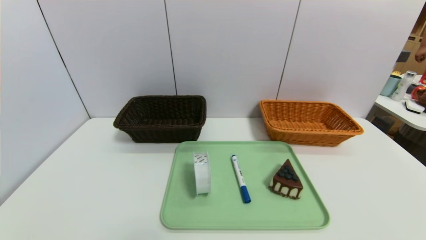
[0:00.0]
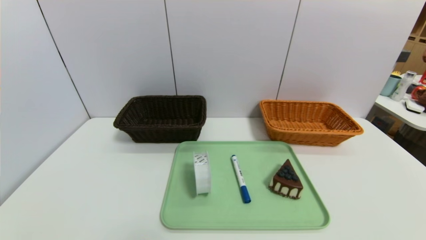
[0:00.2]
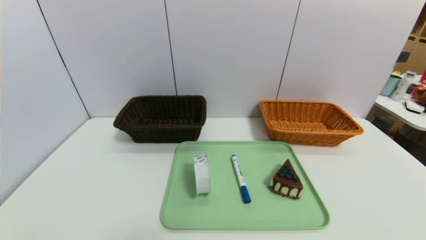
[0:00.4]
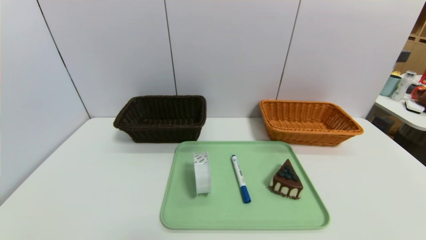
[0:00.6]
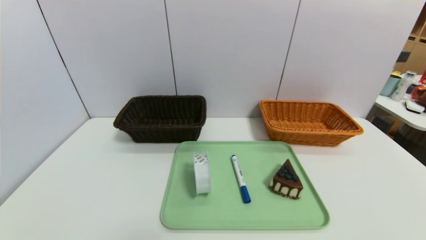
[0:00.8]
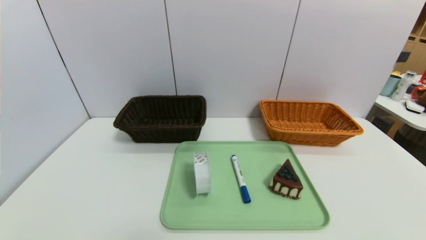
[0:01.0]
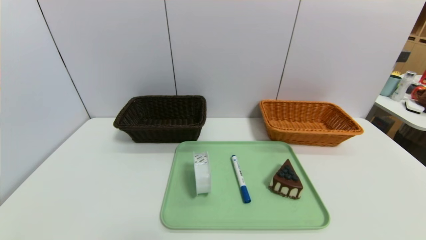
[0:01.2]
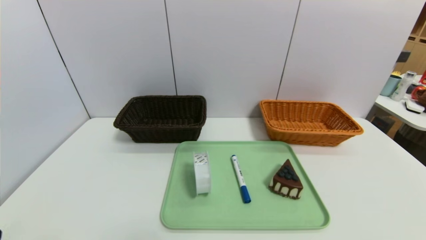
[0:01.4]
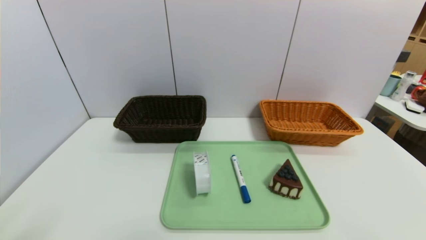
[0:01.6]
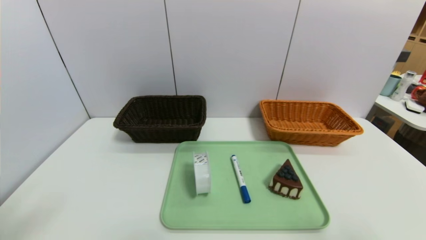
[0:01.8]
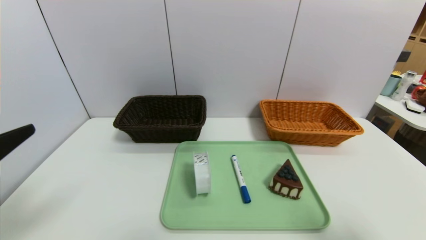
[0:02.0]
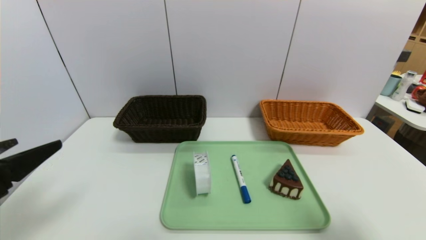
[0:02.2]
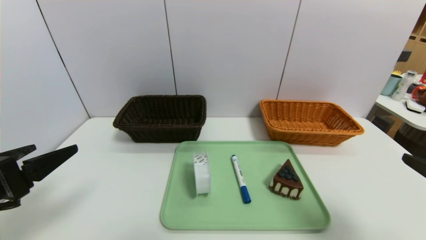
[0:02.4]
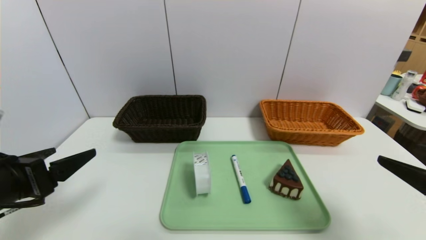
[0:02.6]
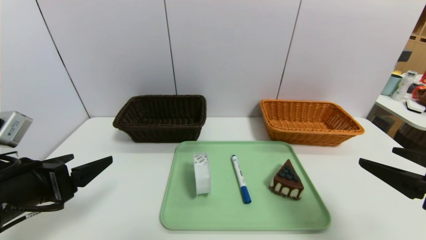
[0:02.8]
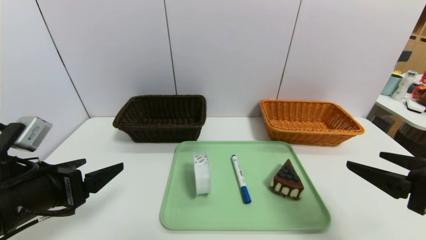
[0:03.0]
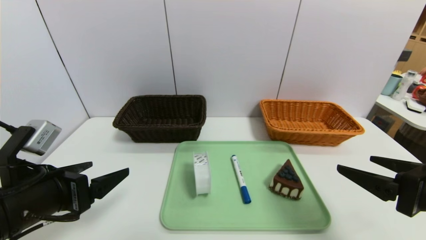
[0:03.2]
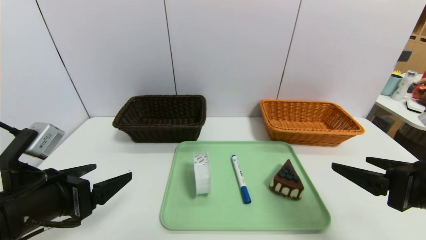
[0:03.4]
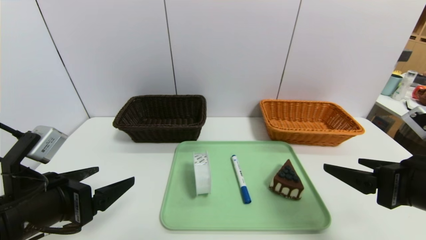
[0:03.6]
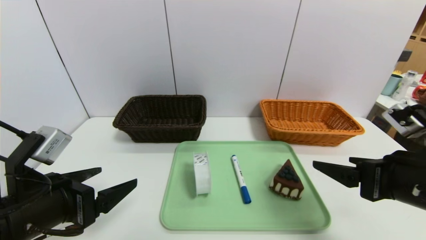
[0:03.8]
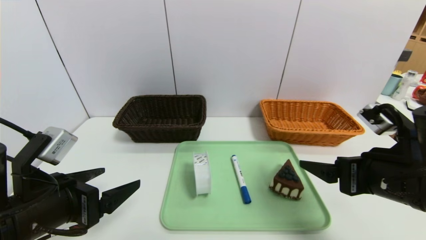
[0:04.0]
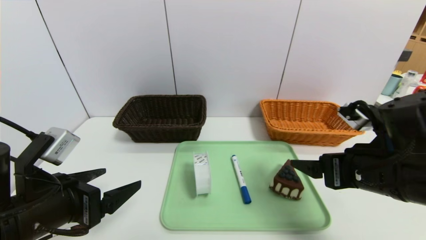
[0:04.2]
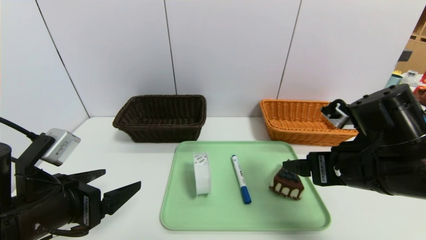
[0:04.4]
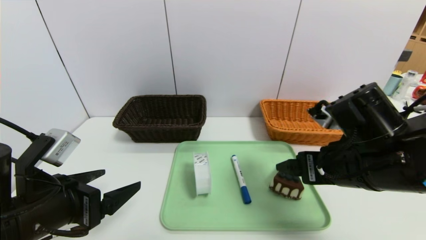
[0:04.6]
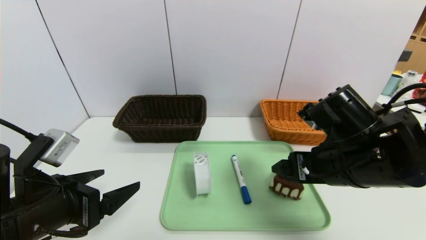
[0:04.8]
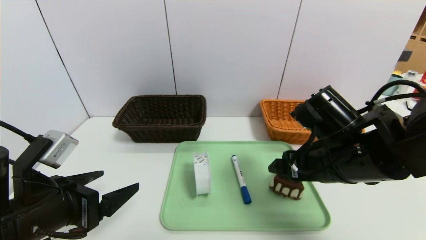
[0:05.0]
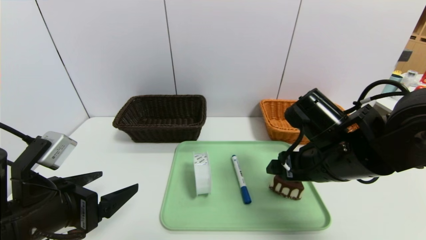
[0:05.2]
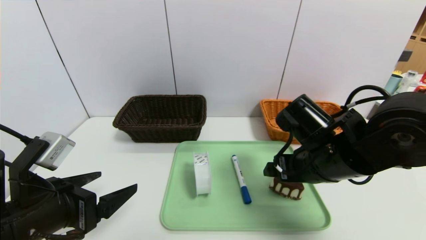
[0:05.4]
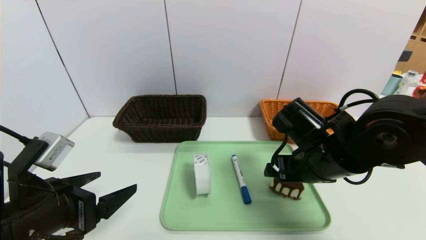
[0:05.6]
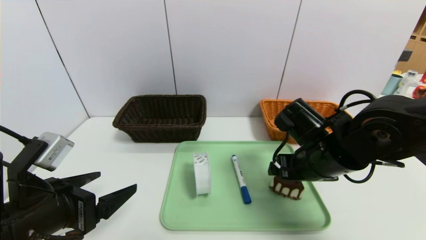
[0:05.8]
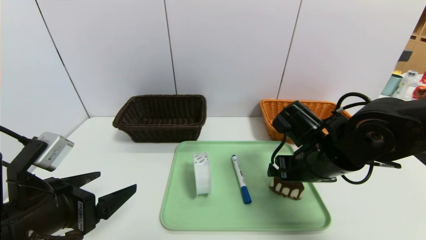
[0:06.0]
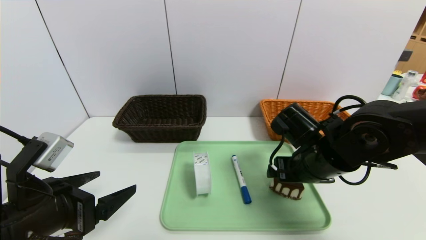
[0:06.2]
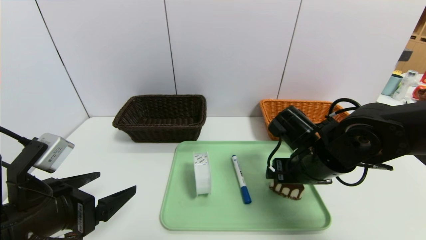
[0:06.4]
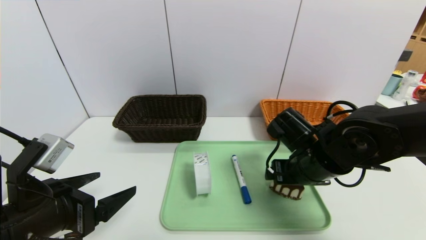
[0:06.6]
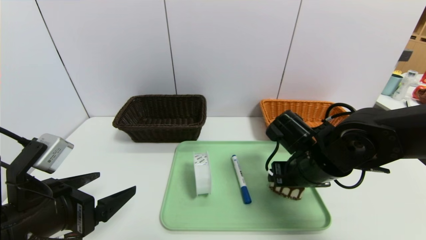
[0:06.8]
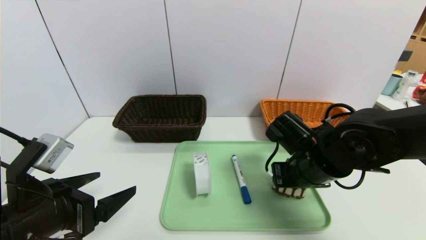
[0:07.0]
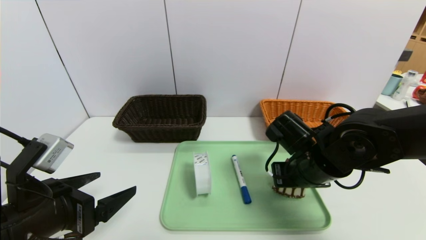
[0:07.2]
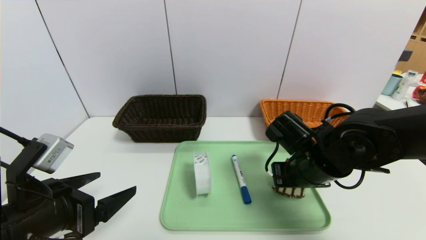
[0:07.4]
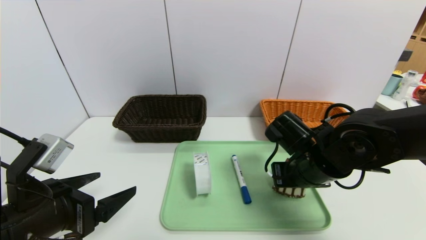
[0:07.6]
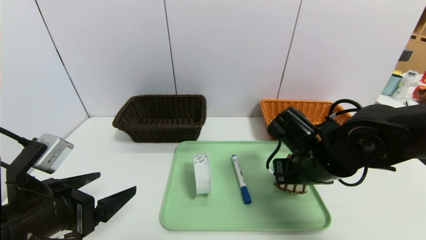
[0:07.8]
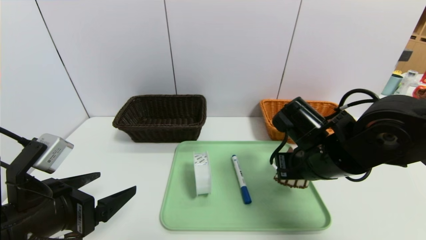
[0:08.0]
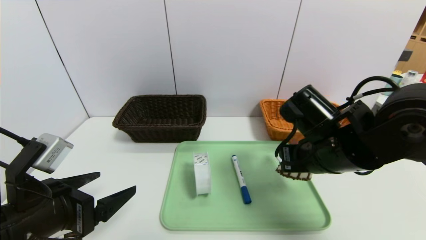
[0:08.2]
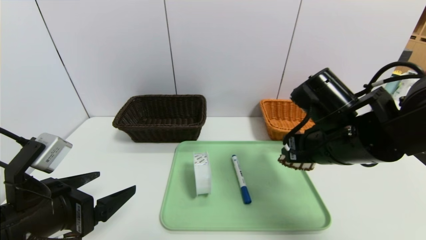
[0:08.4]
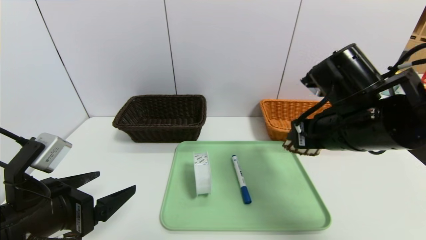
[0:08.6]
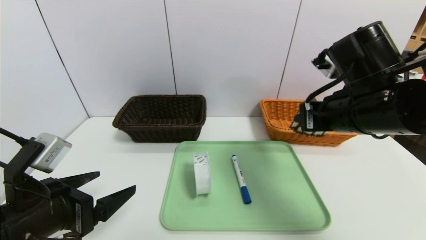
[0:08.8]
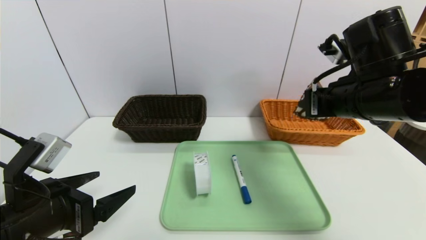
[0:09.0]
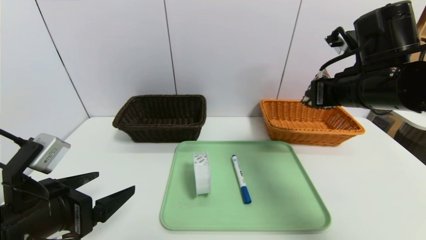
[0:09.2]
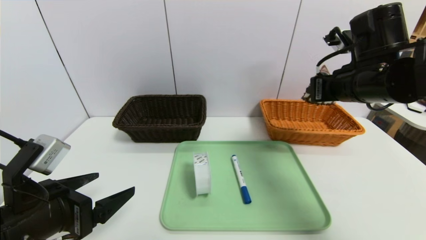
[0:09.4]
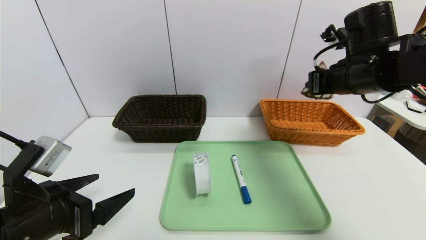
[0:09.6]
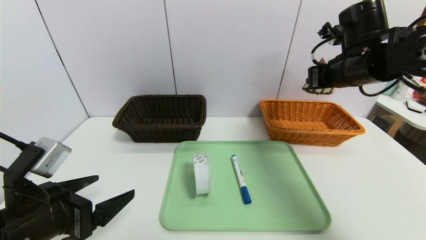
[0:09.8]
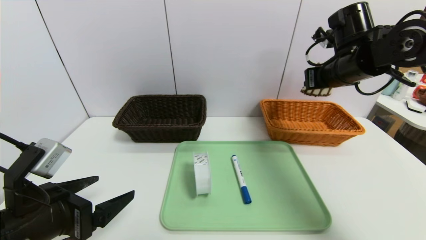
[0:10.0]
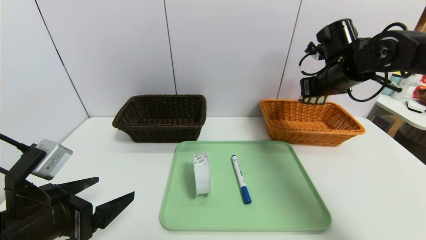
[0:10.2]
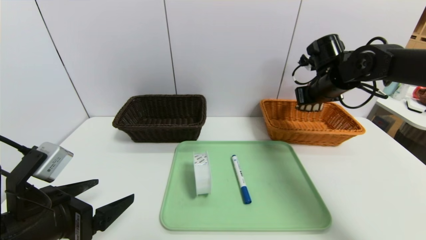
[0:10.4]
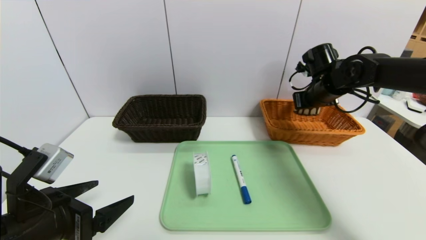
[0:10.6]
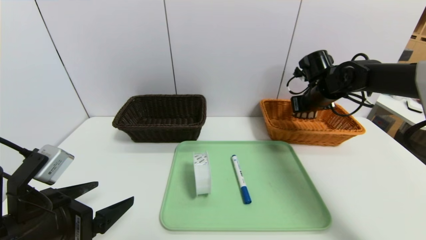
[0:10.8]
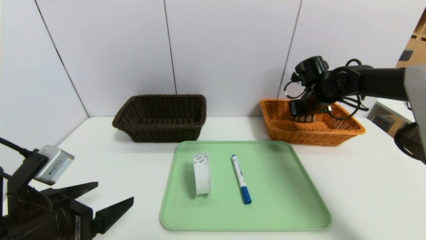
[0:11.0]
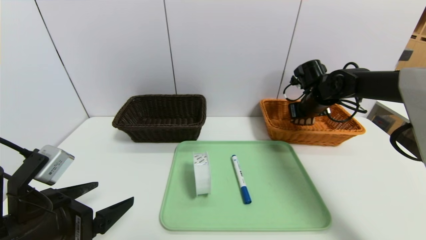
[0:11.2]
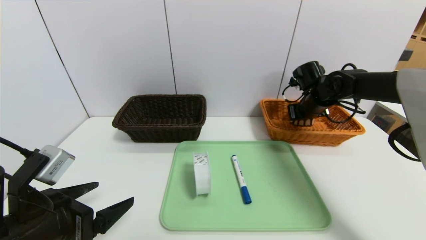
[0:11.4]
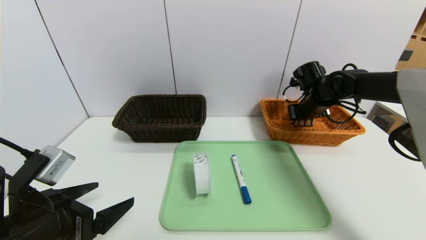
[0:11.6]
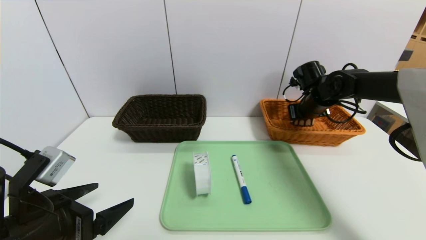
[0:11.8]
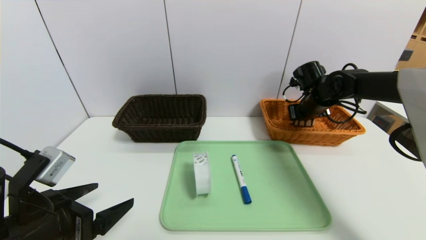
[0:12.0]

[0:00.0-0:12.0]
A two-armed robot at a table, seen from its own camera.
Task of the whole recording: place the food in the right basket with the right gripper, and place the non food items in the left basket with the left gripper.
0:01.6 to 0:03.0: Both grippers travel together forward, approximately 15 cm.
0:03.0 to 0:04.4: The right gripper travels to the left and forward by some 10 cm.
0:04.4 to 0:06.0: The right gripper is displaced forward by approximately 5 cm.
0:06.0 to 0:07.6: The right gripper closes.
0:07.6 to 0:09.0: The right gripper goes roughly 15 cm upward.
0:09.0 to 0:10.4: The right gripper is displaced forward by about 15 cm.
0:10.4 to 0:12.0: The right gripper moves downward, approximately 5 cm.

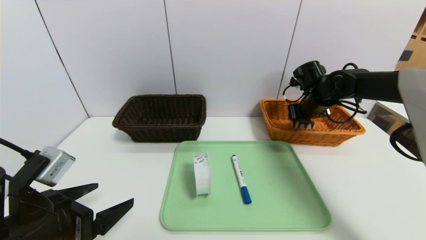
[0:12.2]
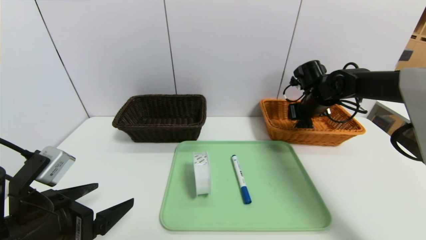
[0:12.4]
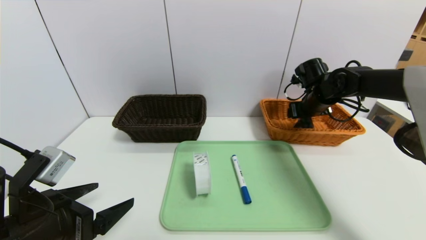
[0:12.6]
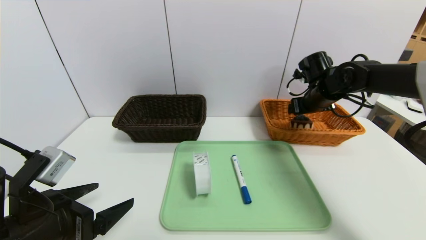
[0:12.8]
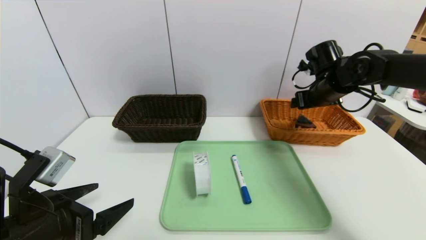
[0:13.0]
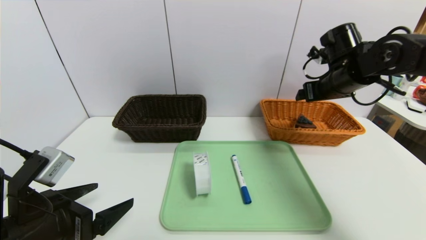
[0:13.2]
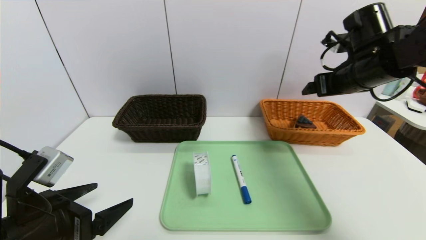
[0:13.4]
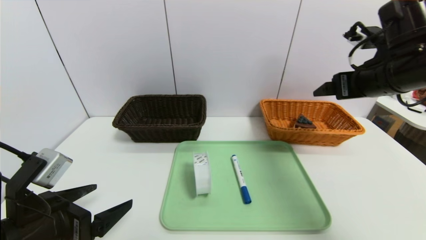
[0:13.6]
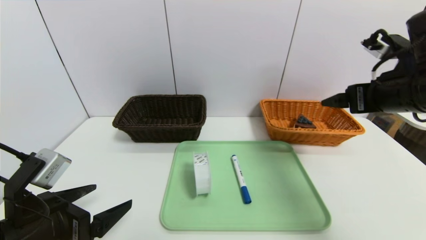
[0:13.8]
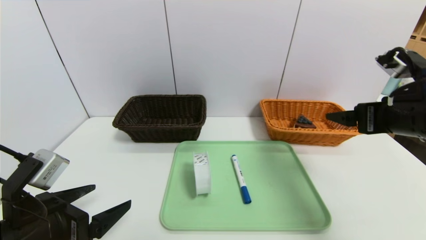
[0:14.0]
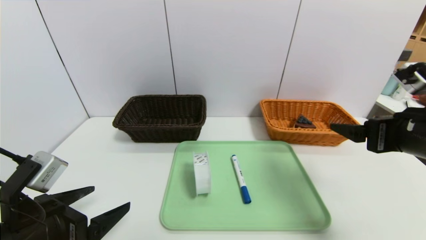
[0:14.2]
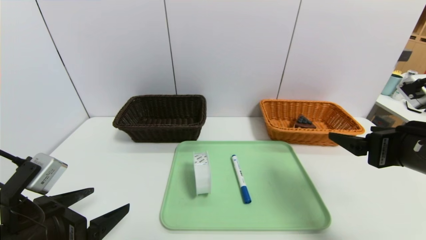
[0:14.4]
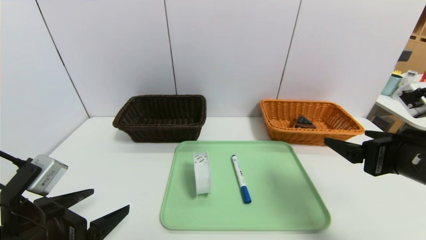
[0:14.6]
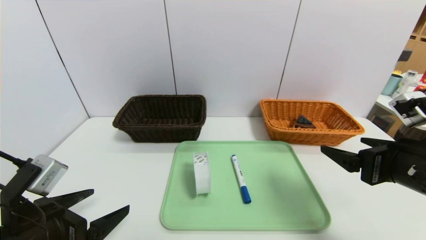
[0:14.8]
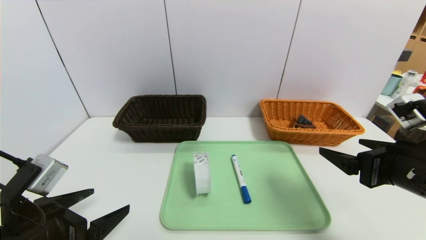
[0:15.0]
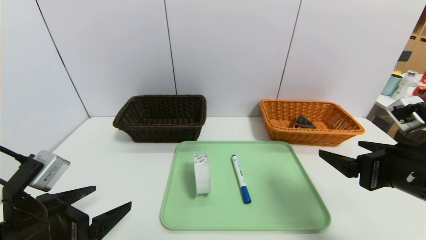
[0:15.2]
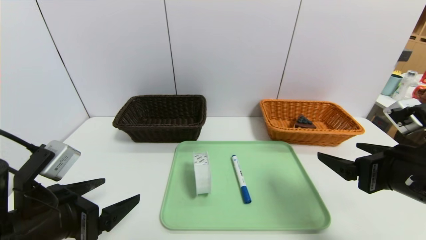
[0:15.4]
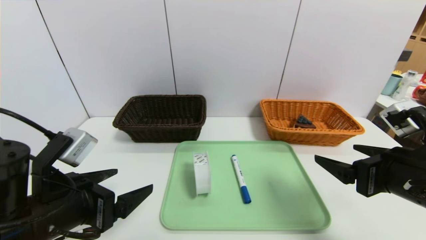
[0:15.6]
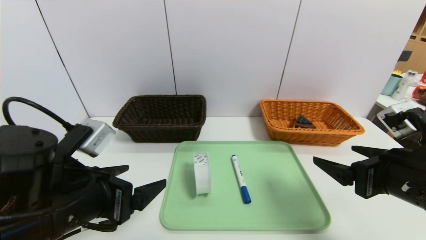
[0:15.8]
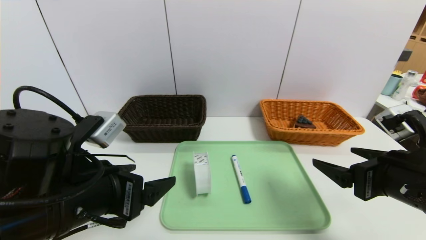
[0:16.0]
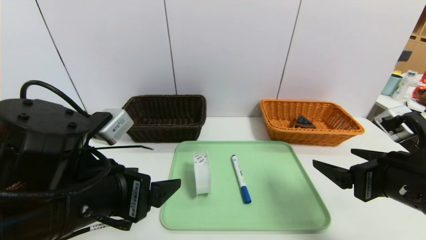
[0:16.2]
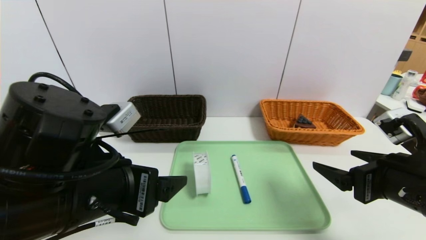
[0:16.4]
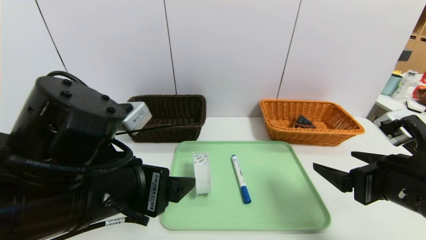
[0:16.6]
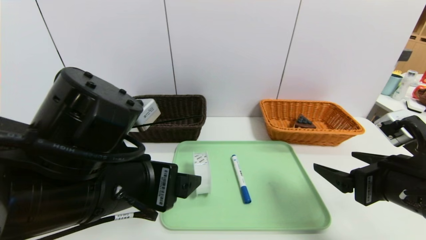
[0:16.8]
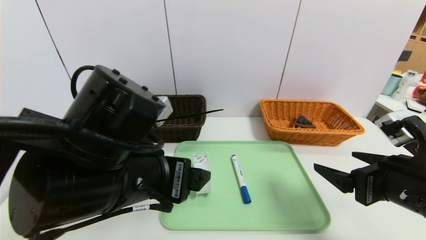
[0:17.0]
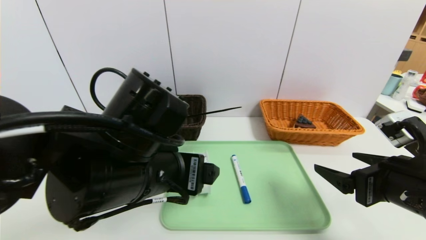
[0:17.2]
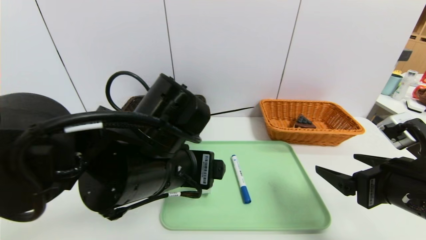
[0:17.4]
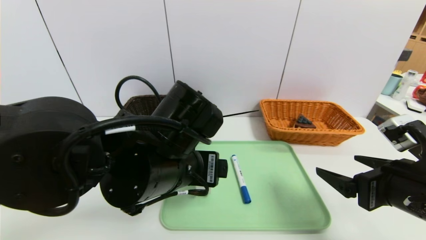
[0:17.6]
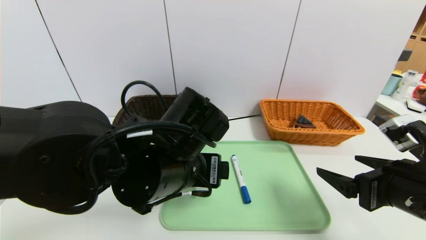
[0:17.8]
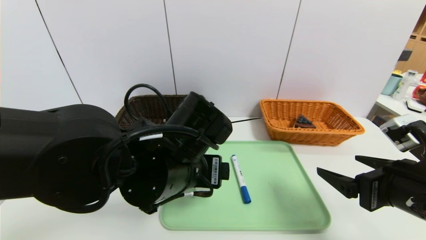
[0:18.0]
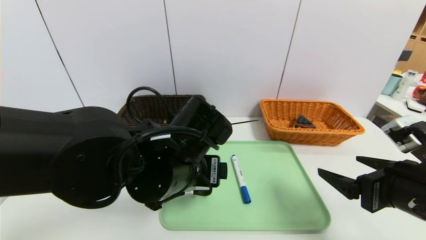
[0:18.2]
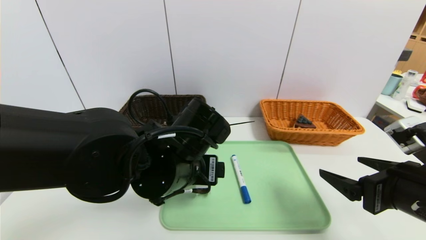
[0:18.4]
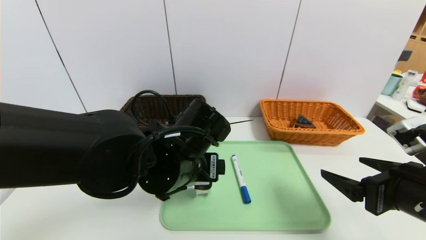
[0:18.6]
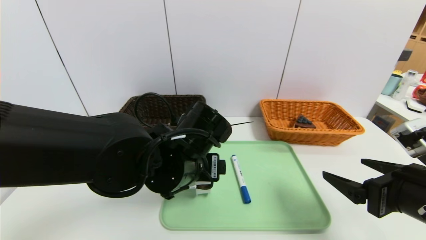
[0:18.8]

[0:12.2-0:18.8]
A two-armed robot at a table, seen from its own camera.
Task of the whole recording: place the food in the right basket with the right gripper, and place the non food items in the left basket with the left gripper.
0:12.2 to 0:13.8: The right gripper shifts approximately 25 cm backward and upward, and opens.
0:13.8 to 0:15.4: The right gripper travels backward and downward by about 10 cm.
0:15.4 to 0:17.2: The left gripper is displaced to the right and upward by approximately 15 cm.
0:17.2 to 0:18.8: The left gripper goes approximately 10 cm forward and downward.
